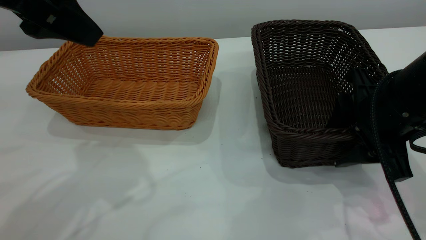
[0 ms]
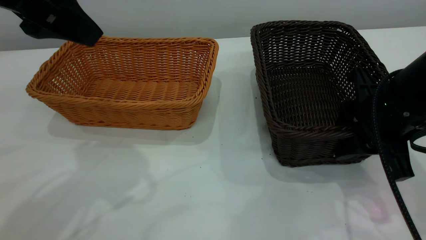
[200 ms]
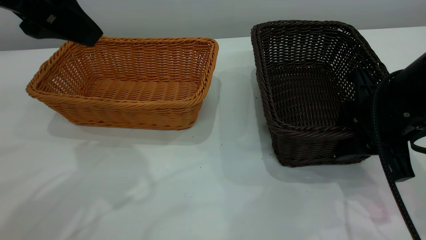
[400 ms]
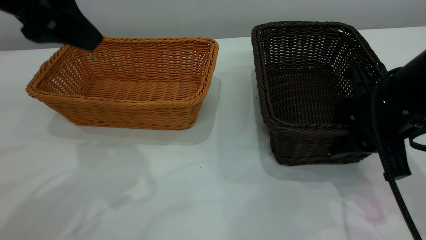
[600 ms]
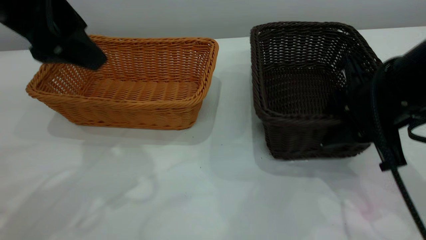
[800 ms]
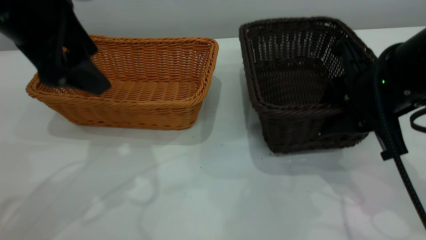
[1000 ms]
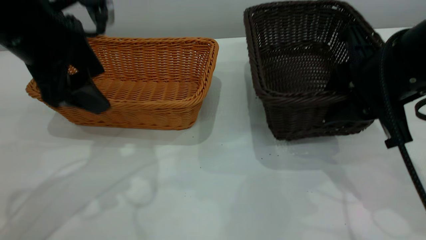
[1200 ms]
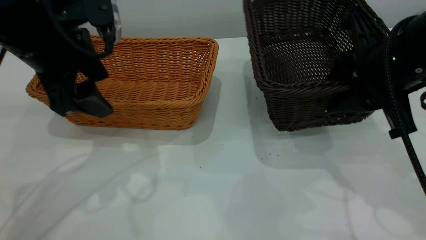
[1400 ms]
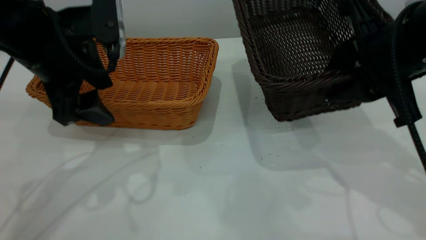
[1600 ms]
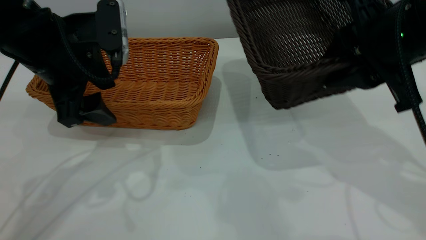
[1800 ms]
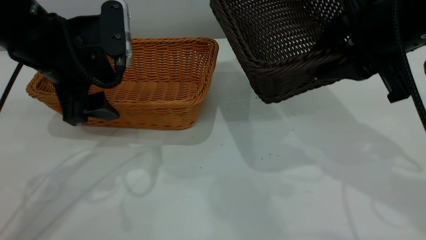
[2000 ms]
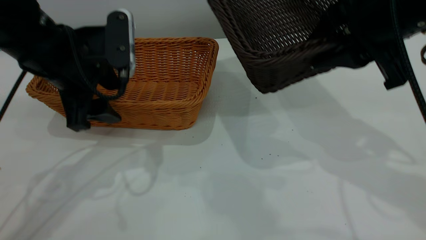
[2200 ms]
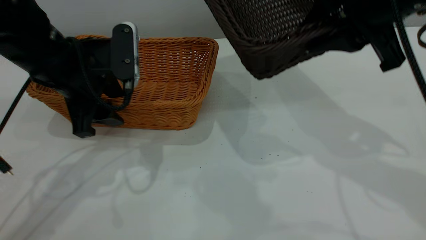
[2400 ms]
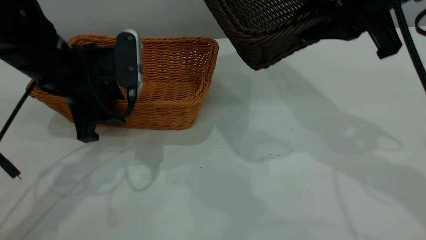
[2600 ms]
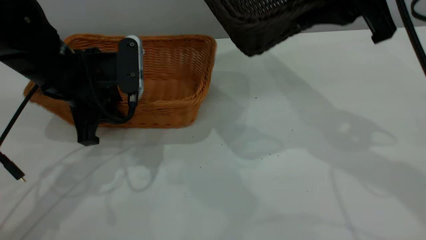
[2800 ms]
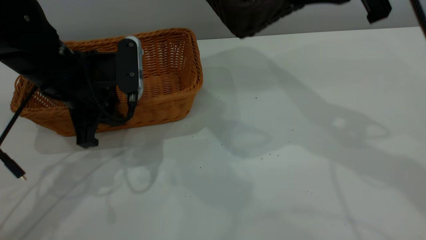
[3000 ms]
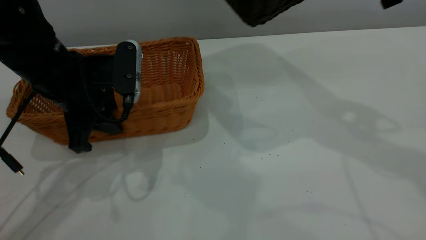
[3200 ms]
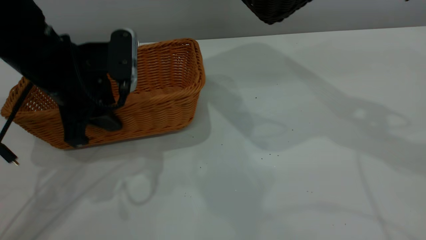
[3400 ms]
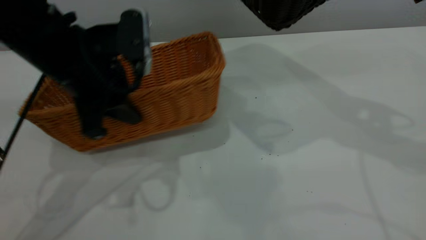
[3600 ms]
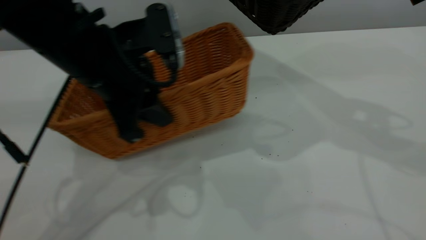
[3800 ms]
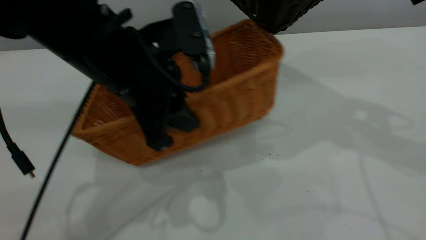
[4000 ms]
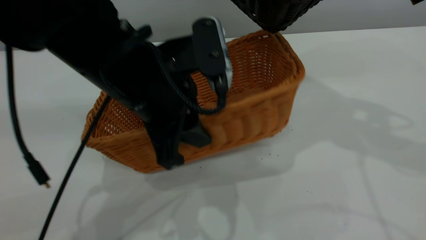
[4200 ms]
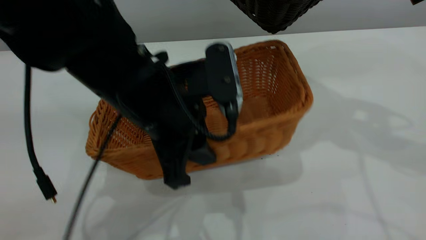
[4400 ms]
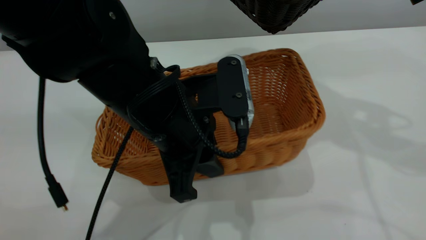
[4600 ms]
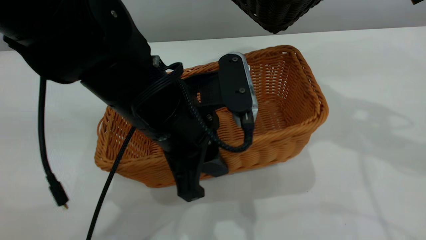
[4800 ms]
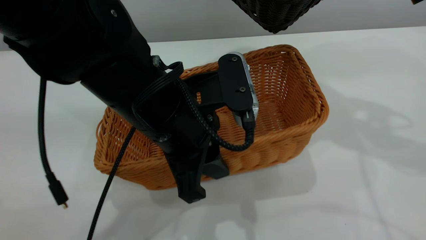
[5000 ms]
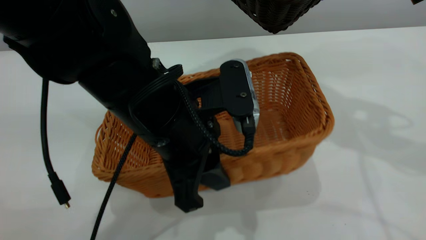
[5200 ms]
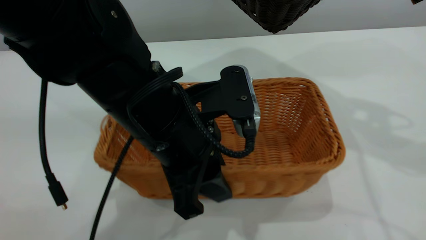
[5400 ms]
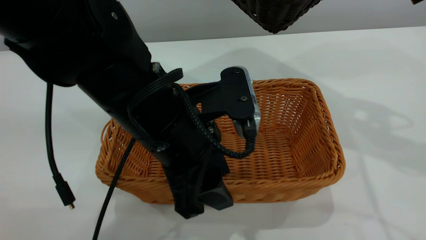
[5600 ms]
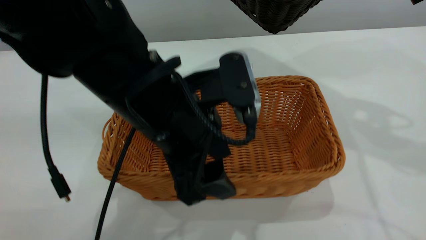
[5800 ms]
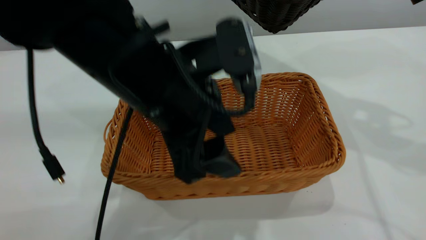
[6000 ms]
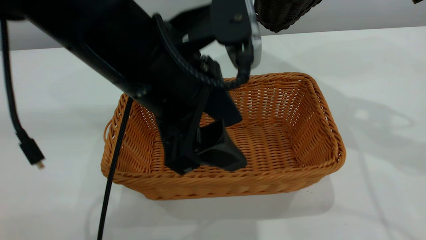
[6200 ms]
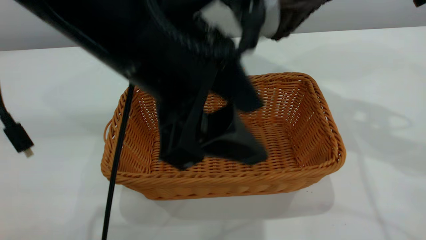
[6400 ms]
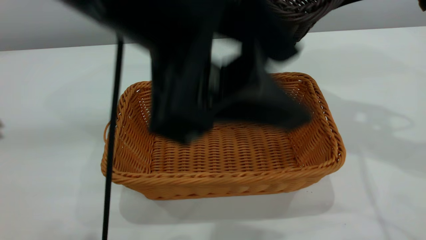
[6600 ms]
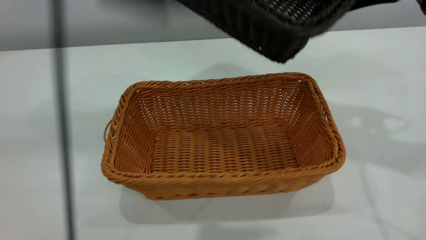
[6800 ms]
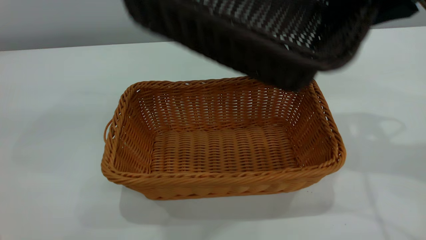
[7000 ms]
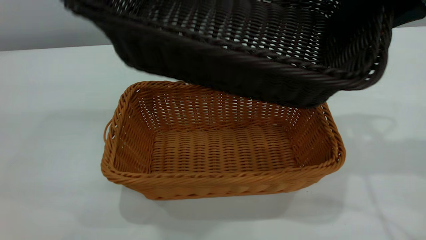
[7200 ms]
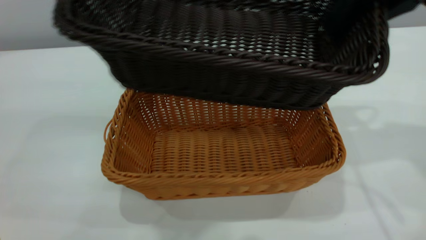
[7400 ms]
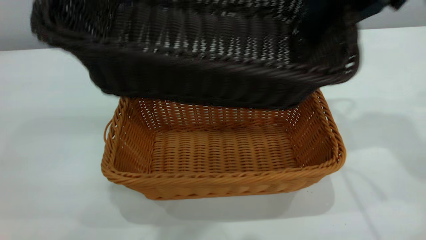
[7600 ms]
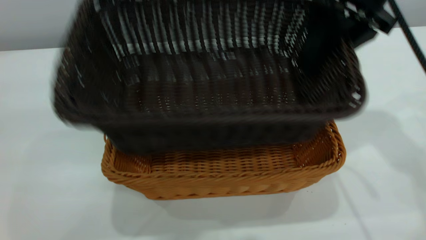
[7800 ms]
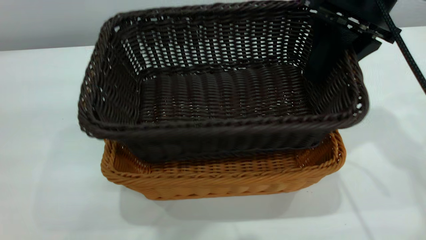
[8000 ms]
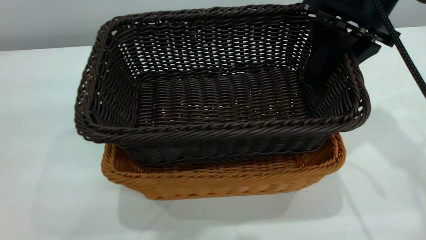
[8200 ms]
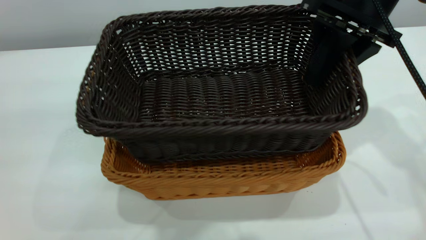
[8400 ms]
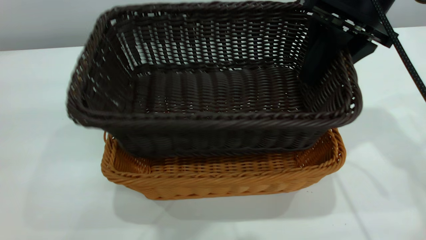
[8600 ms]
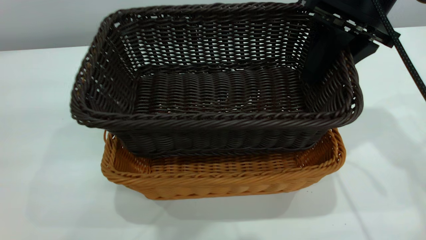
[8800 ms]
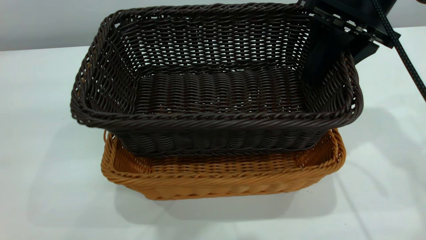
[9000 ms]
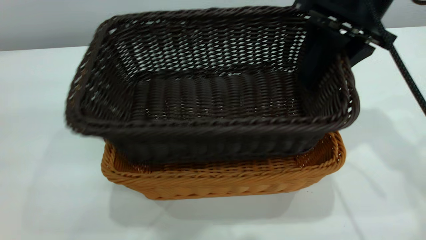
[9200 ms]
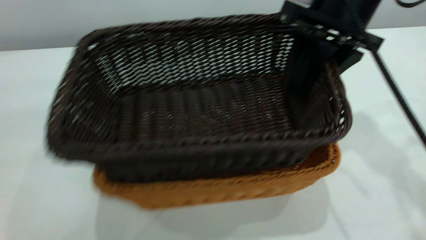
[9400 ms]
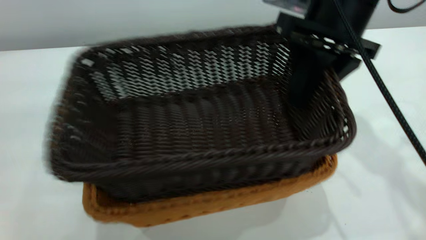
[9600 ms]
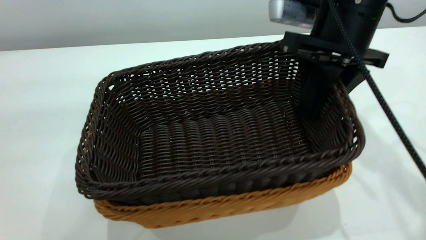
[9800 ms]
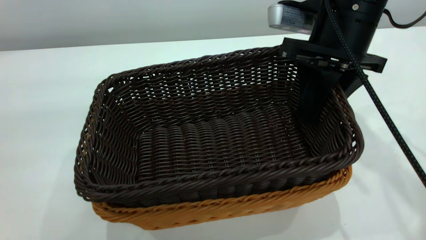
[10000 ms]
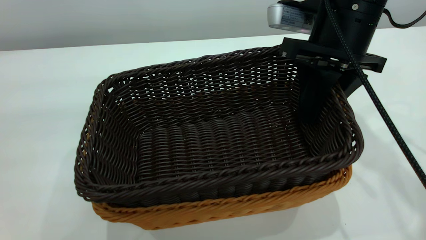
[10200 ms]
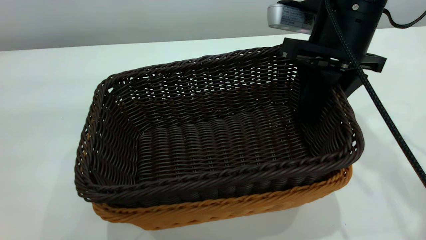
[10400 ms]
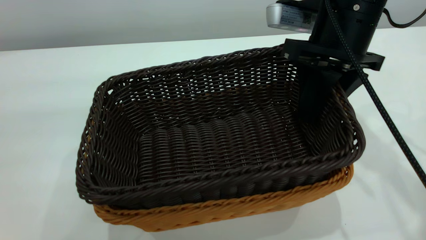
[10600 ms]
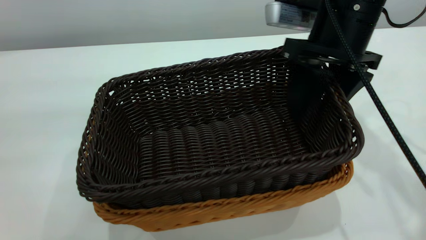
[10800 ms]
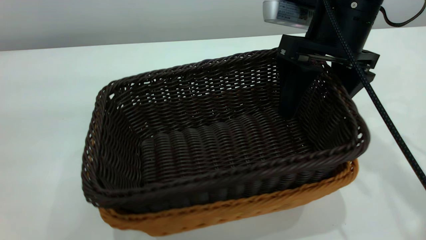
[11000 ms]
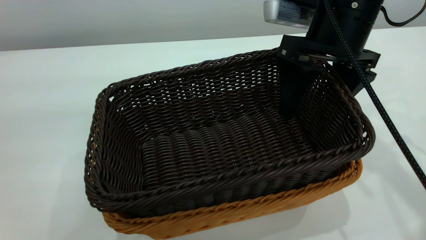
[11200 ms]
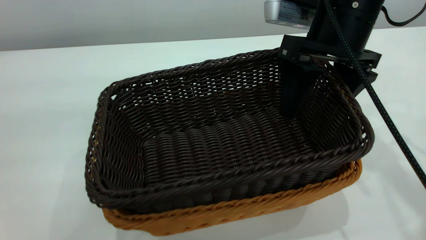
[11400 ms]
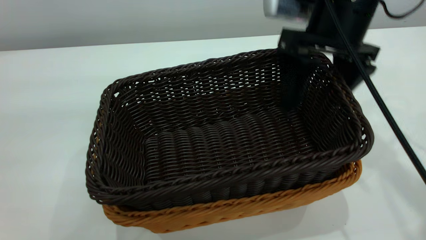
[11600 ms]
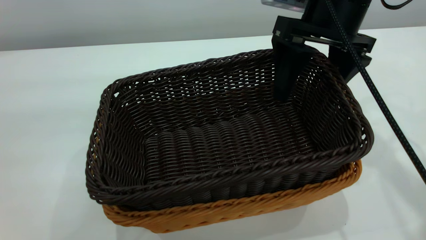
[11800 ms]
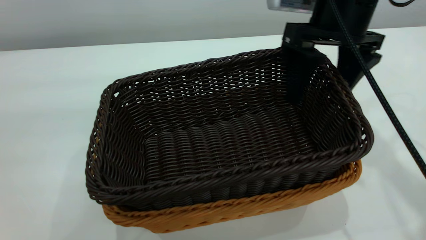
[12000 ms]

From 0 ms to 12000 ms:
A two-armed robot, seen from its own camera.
Task of the whole recording: the left gripper grasp the brown basket and place it in the center of the table, the right gripper grasp the black basket and place it inside the brown one.
Step, from 1600 ms to 6200 ms: Place the light-colored basket in the center.
From 0 ms to 1600 ms: The right gripper goes some 5 cm upward. The left gripper moves downward, some 10 cm.
From 1600 ms to 3000 ms: The right gripper goes roughly 10 cm upward. The left gripper moves downward, some 5 cm, and closes its fingers.
From 3000 ms to 4400 ms: The left gripper shifts some 15 cm to the right and backward.
From 4400 ms to 6000 ms: The left gripper shifts by some 5 cm, and opens up.
From 6000 ms to 7600 ms: The left gripper moves upward, some 25 cm.
From 10400 ms to 12000 ms: The right gripper opens.

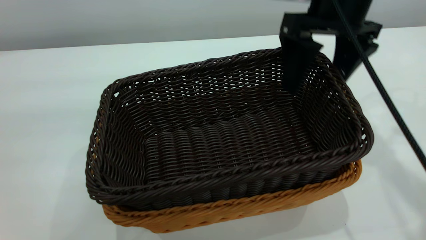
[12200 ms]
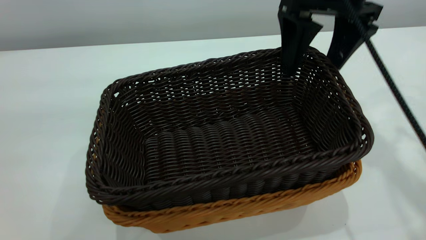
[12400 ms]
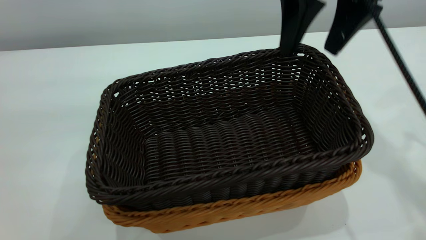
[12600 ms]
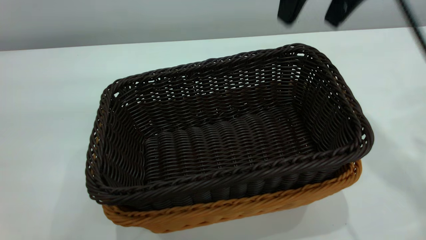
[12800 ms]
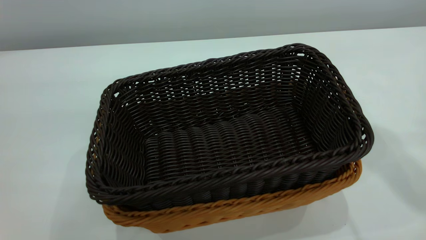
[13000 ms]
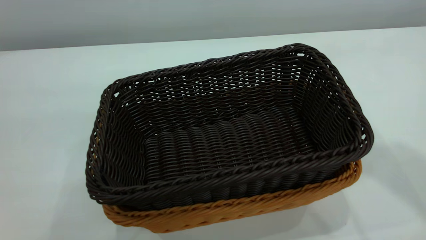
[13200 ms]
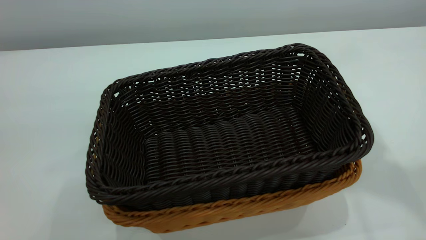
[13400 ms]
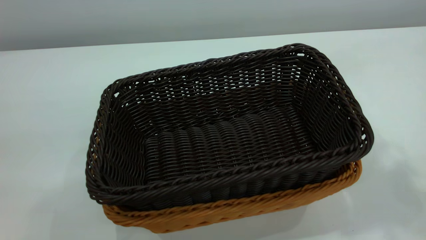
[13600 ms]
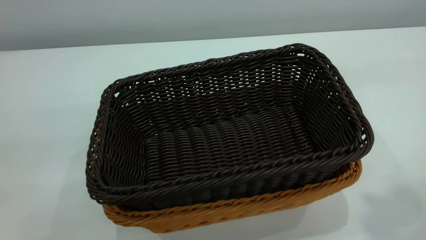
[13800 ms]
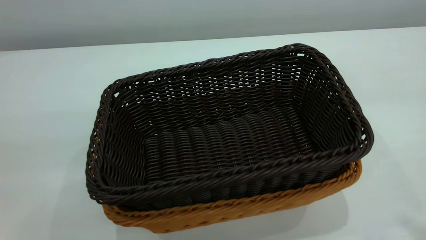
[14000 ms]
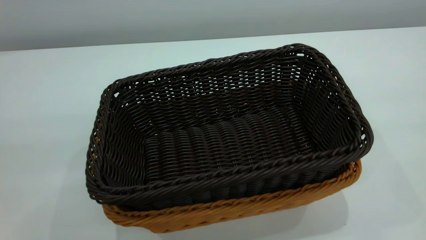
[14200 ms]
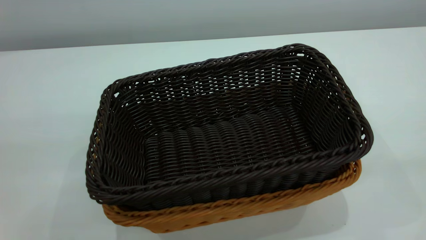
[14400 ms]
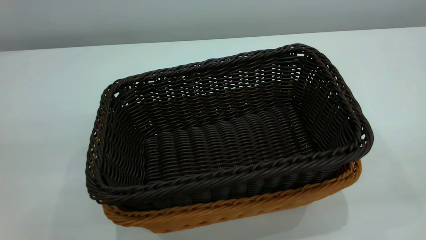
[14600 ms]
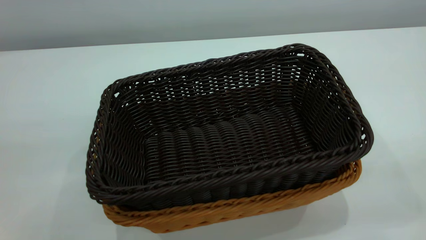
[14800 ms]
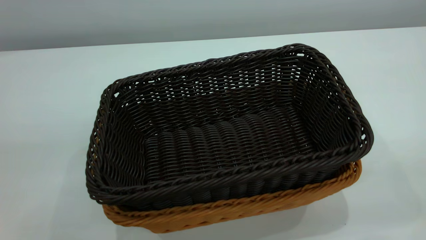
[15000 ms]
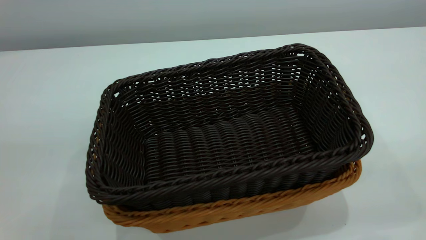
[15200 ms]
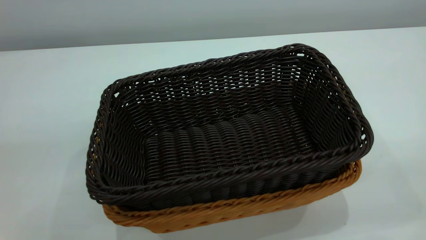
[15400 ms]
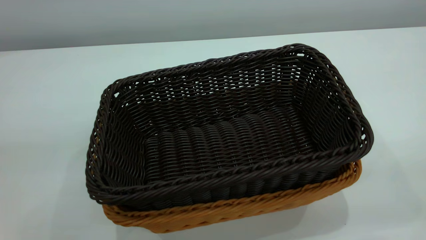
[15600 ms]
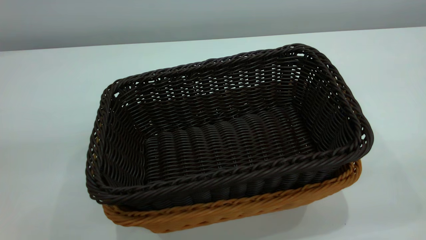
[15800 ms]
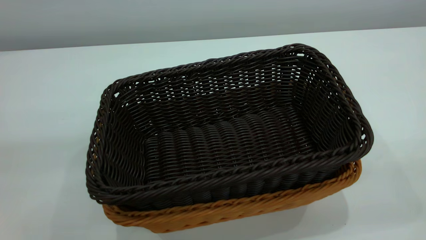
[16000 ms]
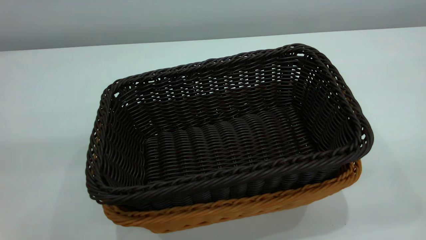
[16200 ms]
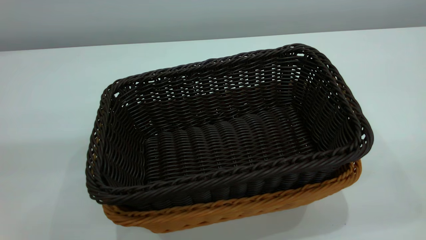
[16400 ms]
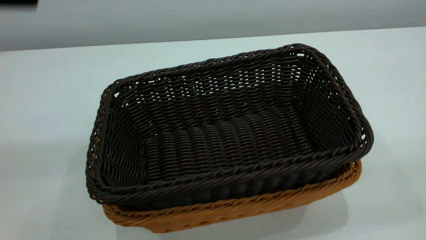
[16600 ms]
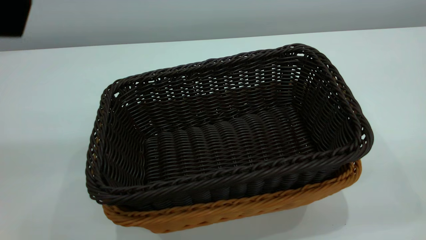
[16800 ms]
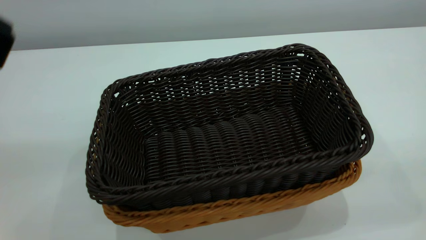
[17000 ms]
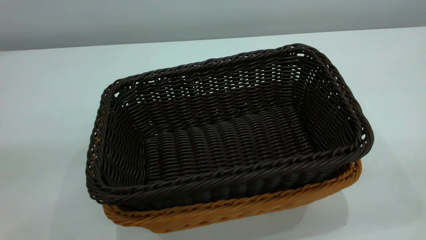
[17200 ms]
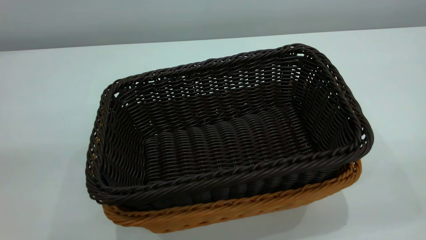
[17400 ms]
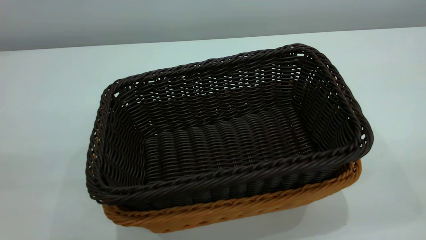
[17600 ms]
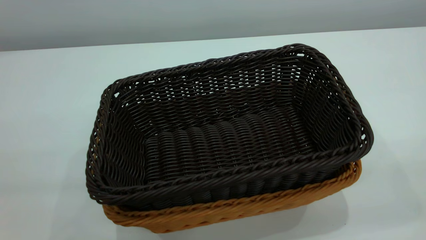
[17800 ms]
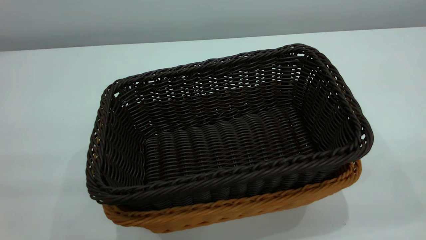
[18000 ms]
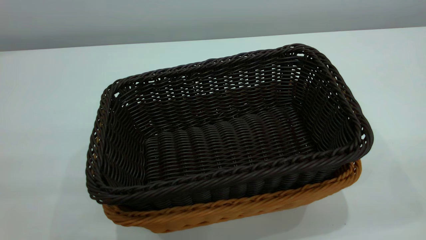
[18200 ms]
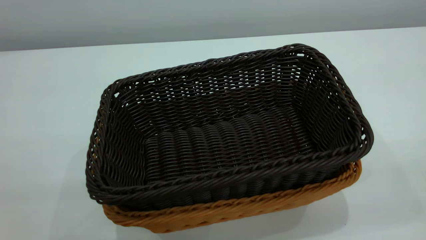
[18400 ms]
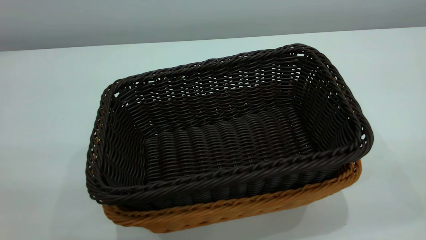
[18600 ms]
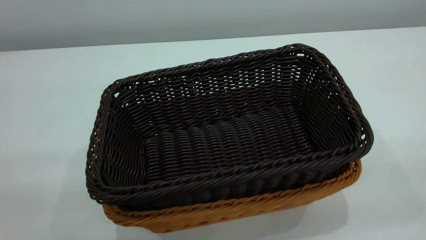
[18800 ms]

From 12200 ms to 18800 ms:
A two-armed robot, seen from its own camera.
Task of the whole recording: the left gripper grasp the brown basket and place it in the center of the table, the right gripper grasp the black basket and place it inside the brown one.
From 12200 ms to 13800 ms: The right gripper is displaced upward and backward by approximately 30 cm, and closes up.
